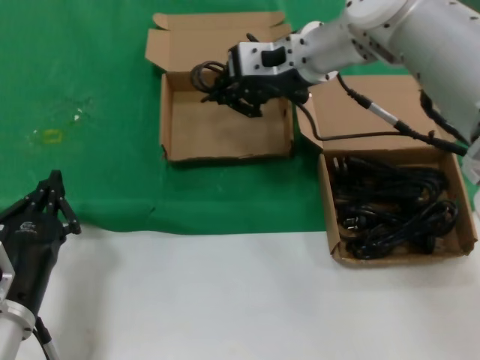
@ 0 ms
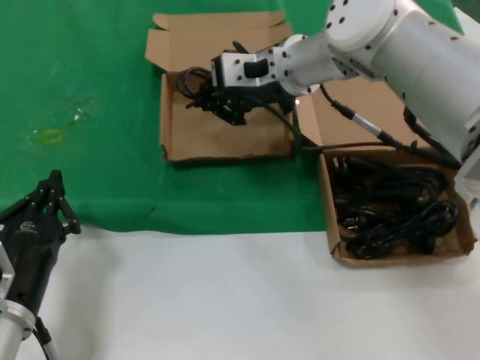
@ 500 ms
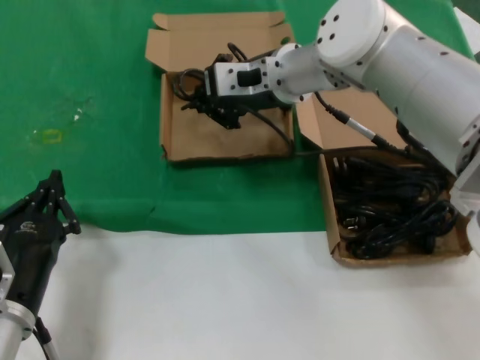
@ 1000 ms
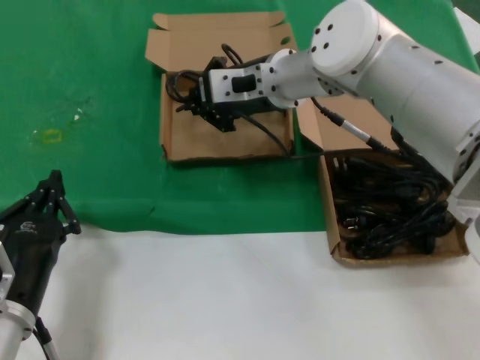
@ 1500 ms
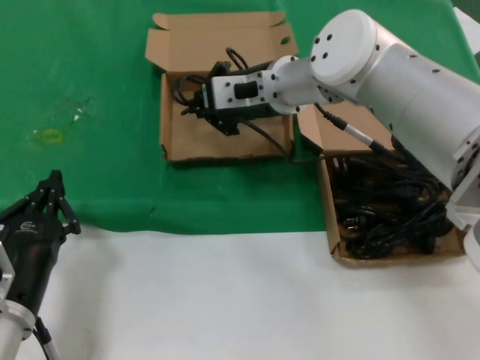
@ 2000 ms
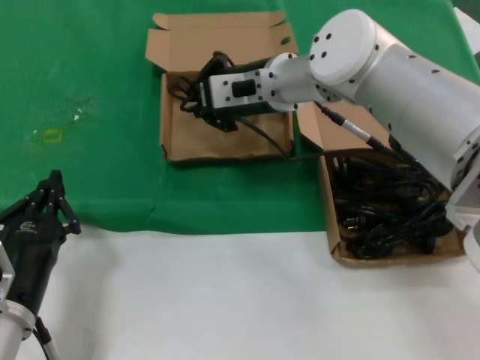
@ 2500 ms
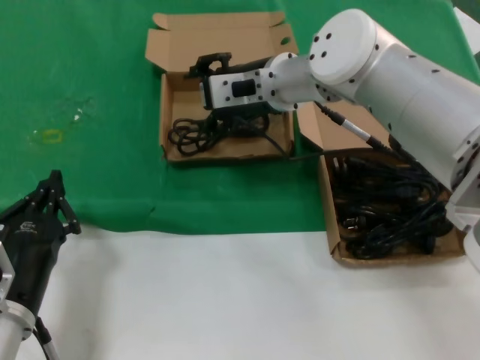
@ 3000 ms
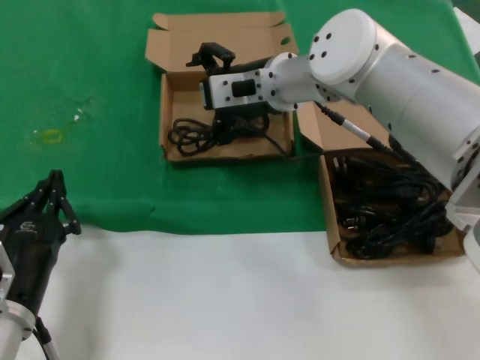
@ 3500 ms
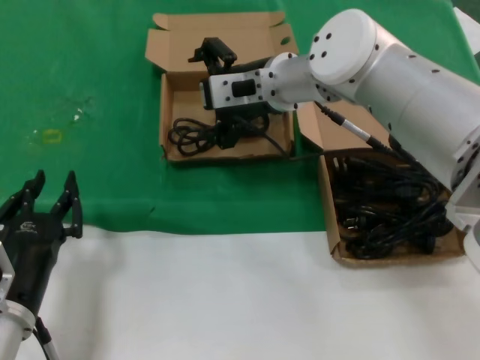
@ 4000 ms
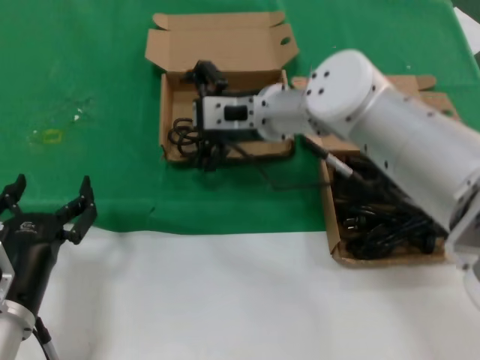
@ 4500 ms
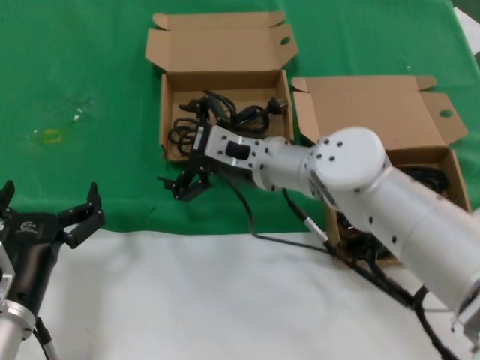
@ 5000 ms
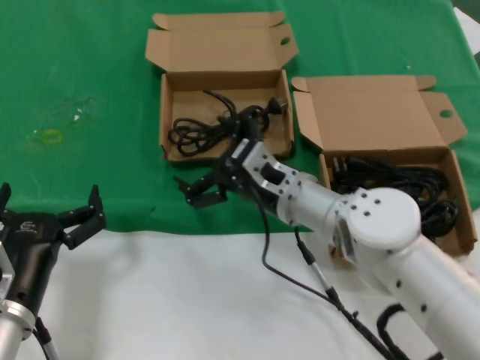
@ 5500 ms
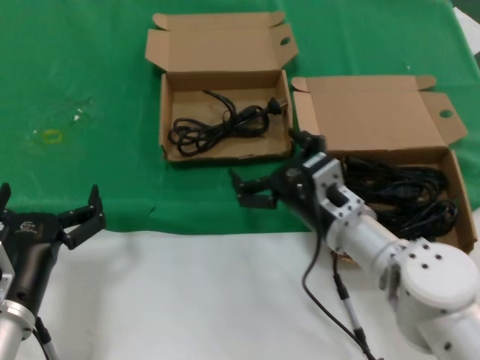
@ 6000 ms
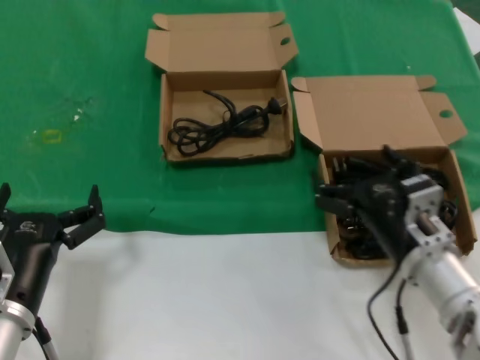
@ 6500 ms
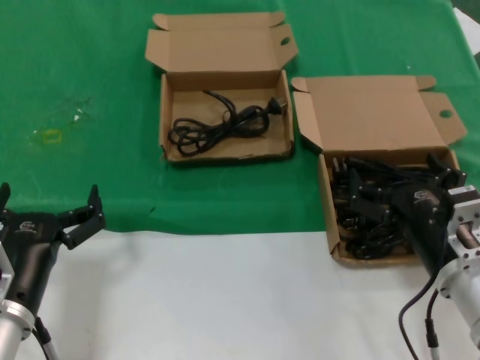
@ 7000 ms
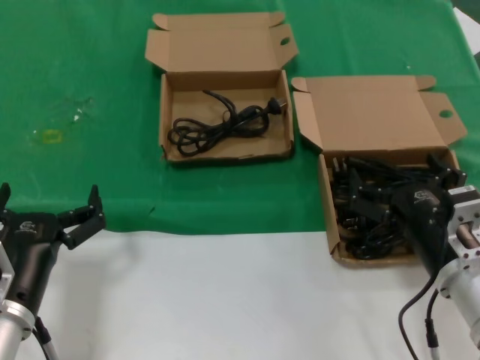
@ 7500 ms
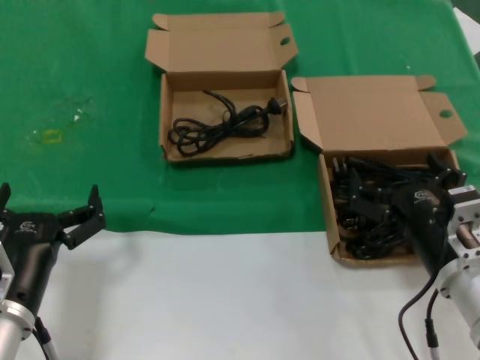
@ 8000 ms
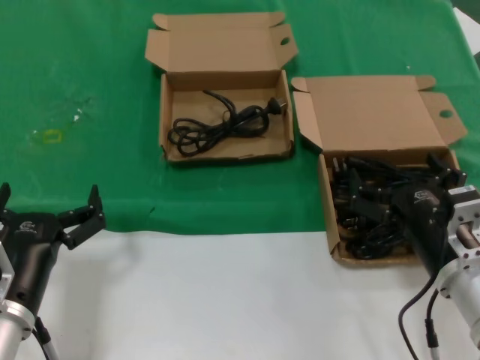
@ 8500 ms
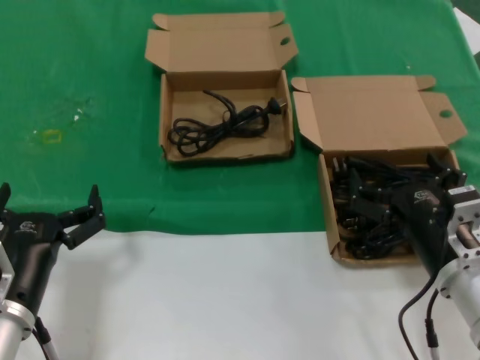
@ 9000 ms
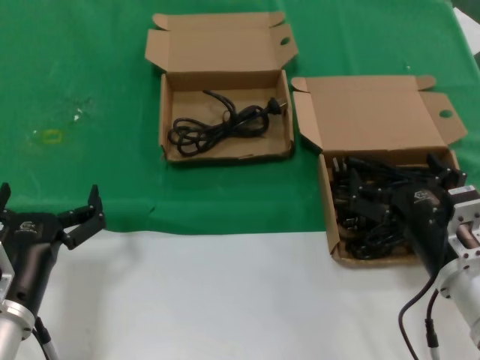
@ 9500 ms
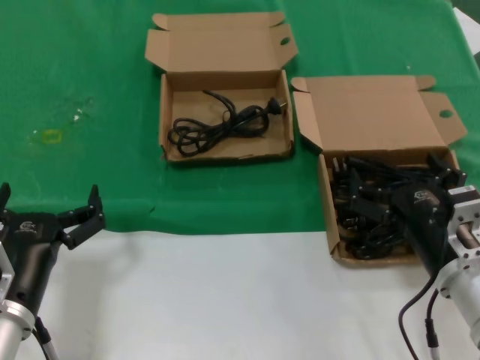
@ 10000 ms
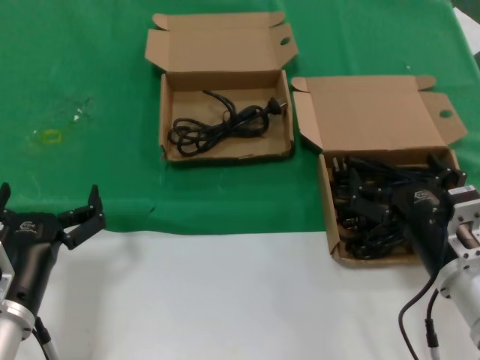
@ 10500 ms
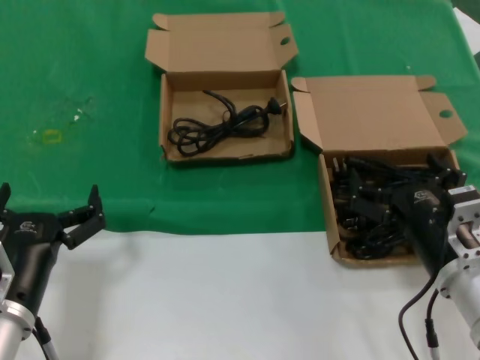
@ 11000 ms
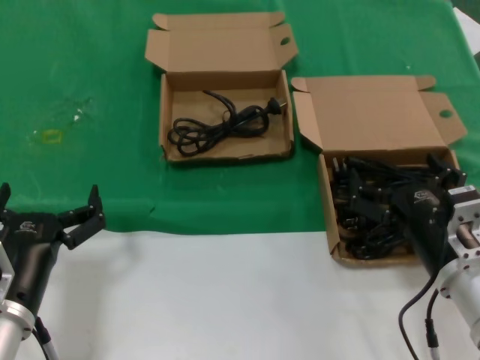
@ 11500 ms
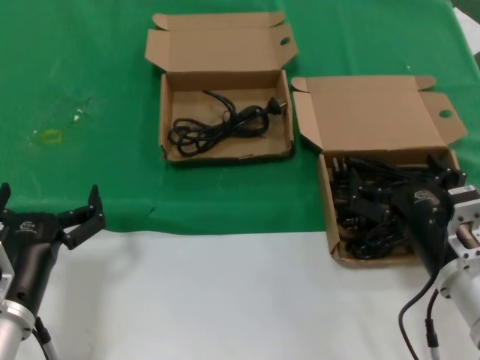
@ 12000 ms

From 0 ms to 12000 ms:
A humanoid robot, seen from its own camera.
Task of the whole recording: take the parts from the box containing them and put them into an empty box.
Step, from 0 ms to 2500 ms: Place the data cable in the another box.
From 0 ms to 2000 ms: The right hand moves about 5 cm.
From 2000 ms to 4000 ms: The two hands keep their place.
From 4000 ms to 6000 ms: The right hand heads downward, backward and to the right, covering some 25 cm.
From 6000 ms to 8000 ms: The right hand goes some 15 cm to the right and backward.
From 8000 ms to 12000 ms: Both hands stay about where they are.

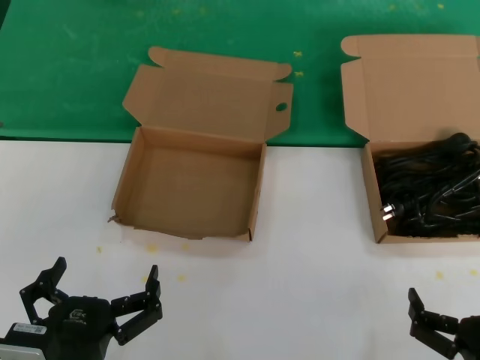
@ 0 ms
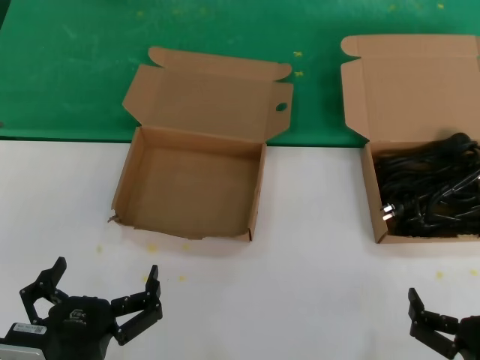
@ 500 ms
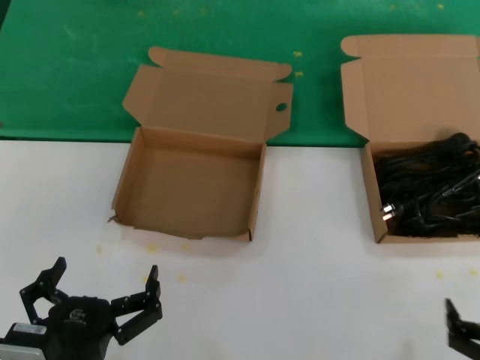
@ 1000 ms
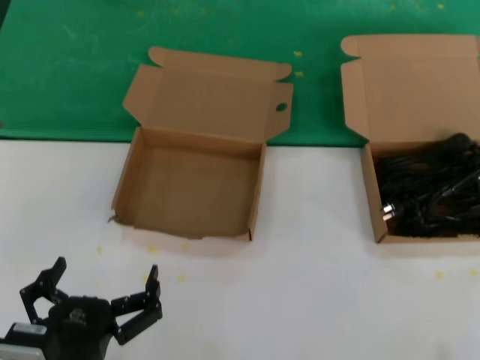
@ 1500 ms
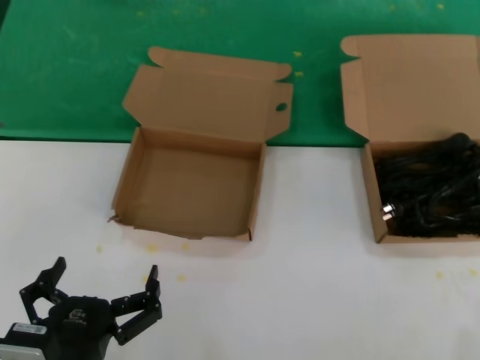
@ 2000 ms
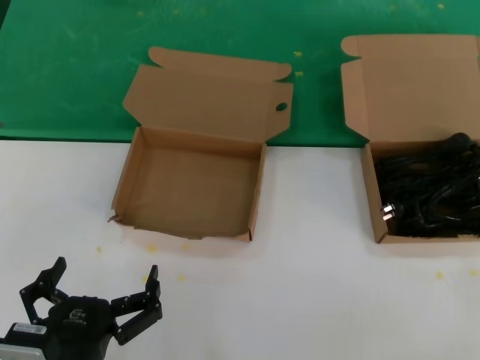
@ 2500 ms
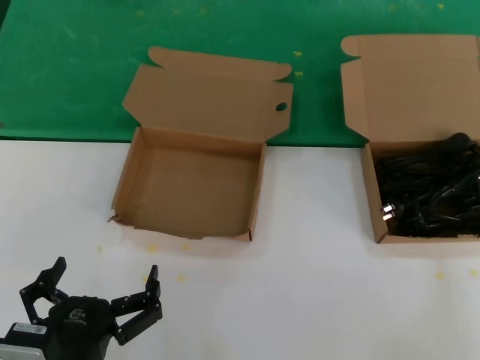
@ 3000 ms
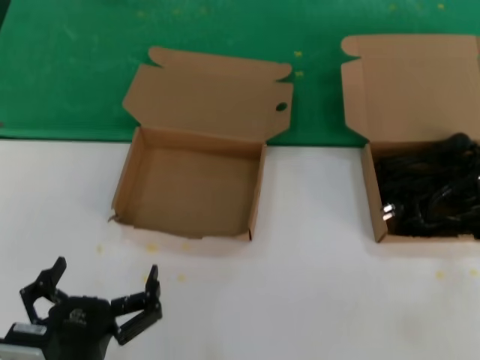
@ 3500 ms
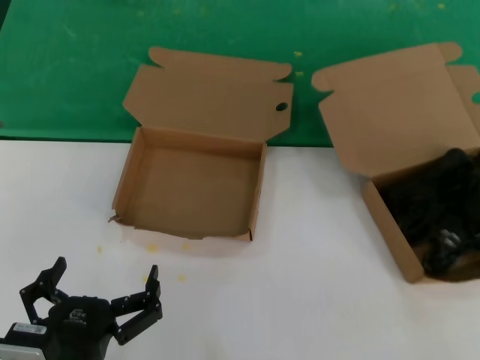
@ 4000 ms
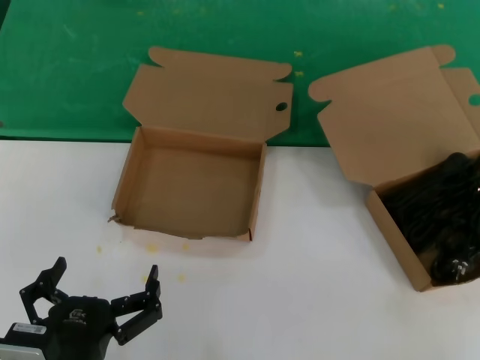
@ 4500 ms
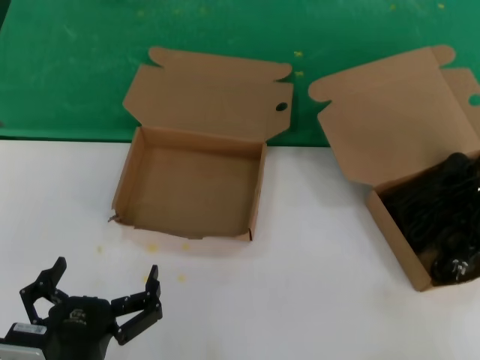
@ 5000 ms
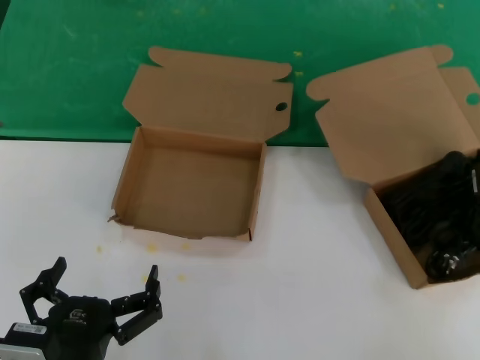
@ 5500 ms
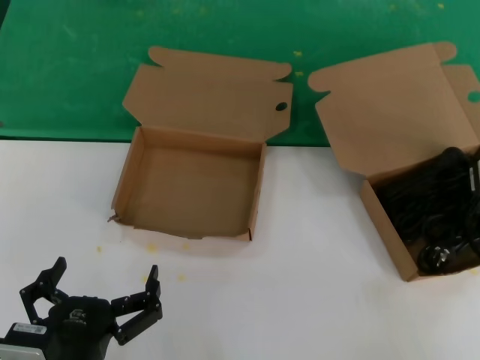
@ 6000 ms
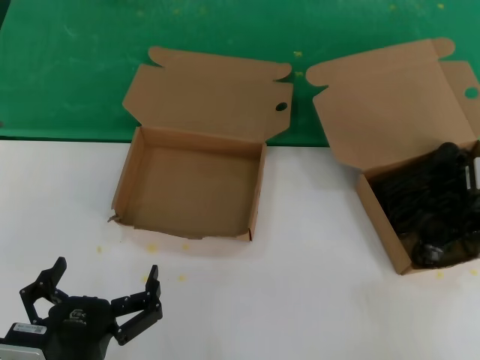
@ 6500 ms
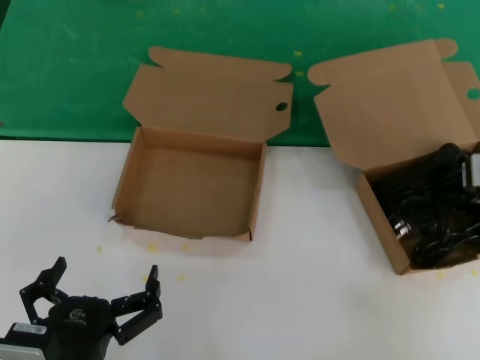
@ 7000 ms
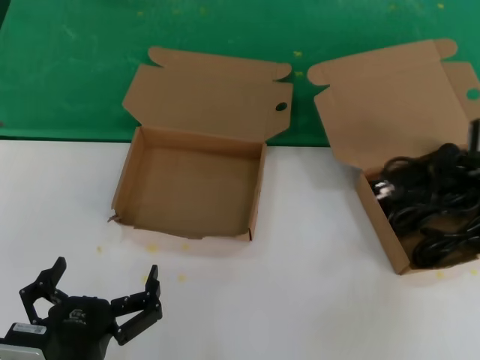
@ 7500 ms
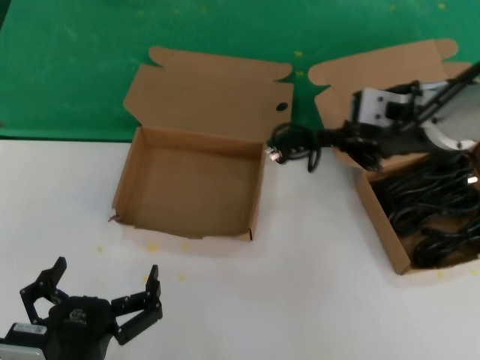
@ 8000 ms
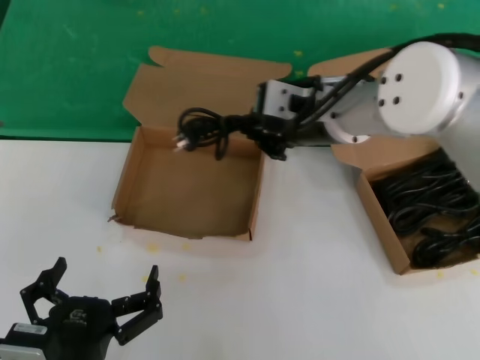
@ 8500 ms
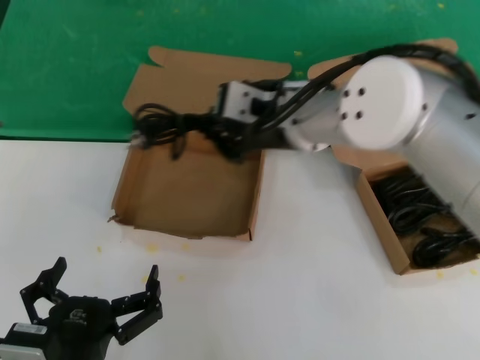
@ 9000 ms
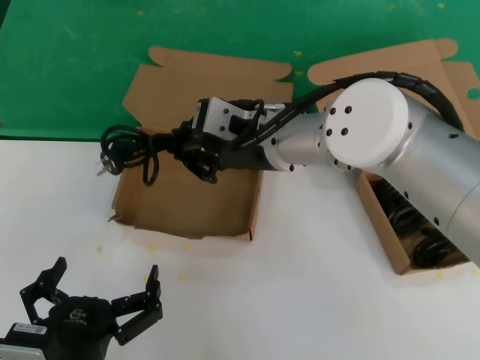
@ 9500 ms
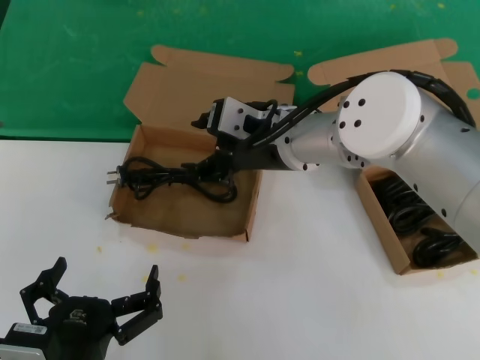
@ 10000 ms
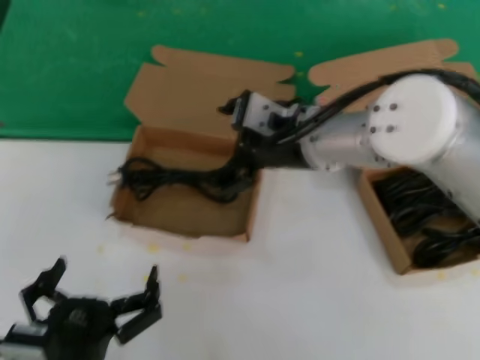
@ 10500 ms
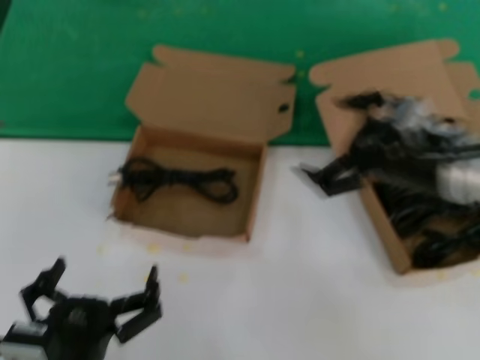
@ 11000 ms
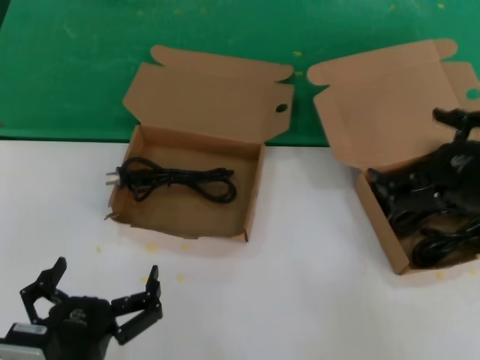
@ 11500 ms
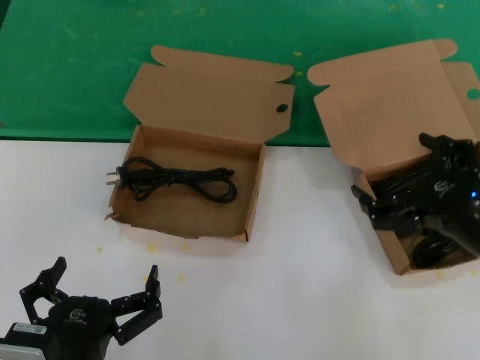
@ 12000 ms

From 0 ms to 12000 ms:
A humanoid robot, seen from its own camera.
Task of the whole recording: take the parts from the box containing them and put them into an empty box.
Step, from 0 ms to 6500 ms: Grasp the data cable.
Step, from 7000 ms to 10500 ms: Place the data cable in the another box.
From 0 ms to 2000 ms: The right hand heads upward and to the right, covering about 15 cm.
From 2000 ms to 4000 ms: The right hand shifts approximately 20 cm forward and upward.
From 4000 ms to 6000 ms: The right hand goes approximately 5 cm to the left.
From 6000 ms to 8000 ms: The right hand is displaced to the left and upward by roughly 15 cm.
From 8000 ms to 10000 ms: The right hand heads to the left, covering some 15 cm.
From 10000 ms to 12000 ms: The right hand moves to the right, downward and backward, approximately 30 cm.

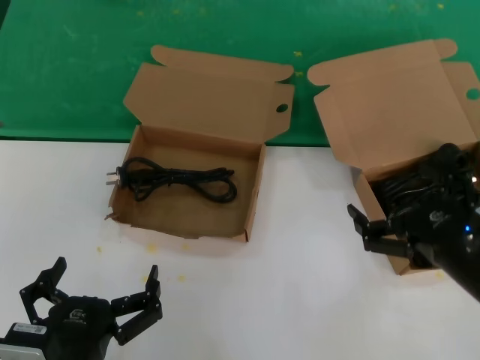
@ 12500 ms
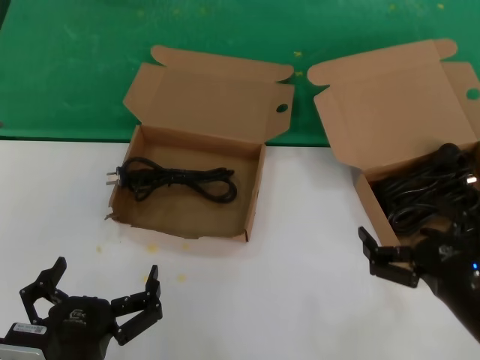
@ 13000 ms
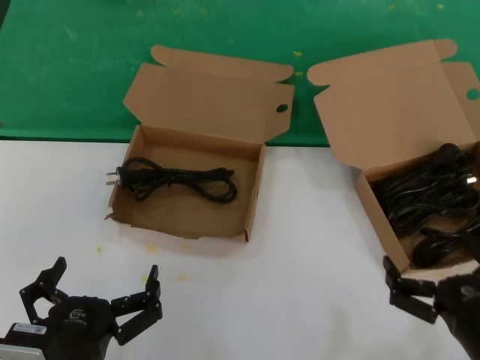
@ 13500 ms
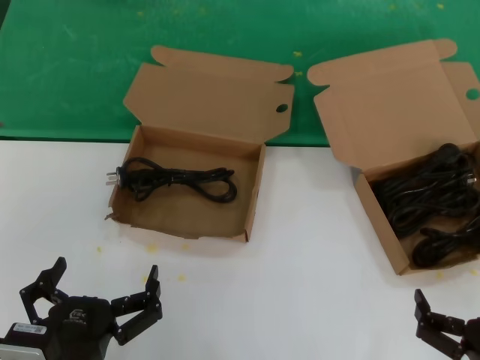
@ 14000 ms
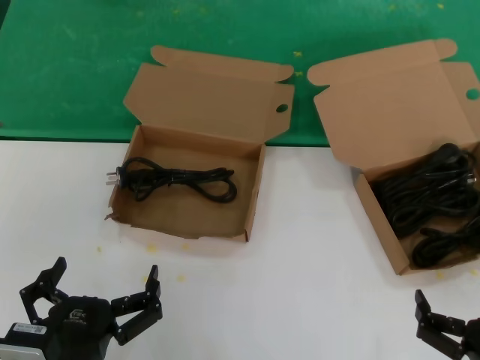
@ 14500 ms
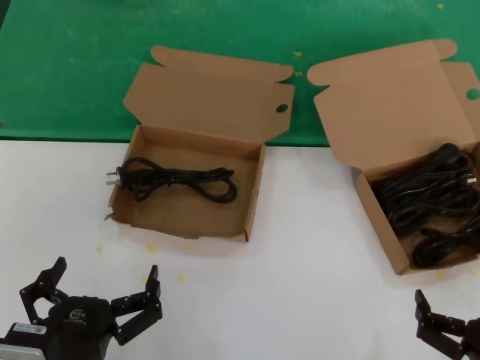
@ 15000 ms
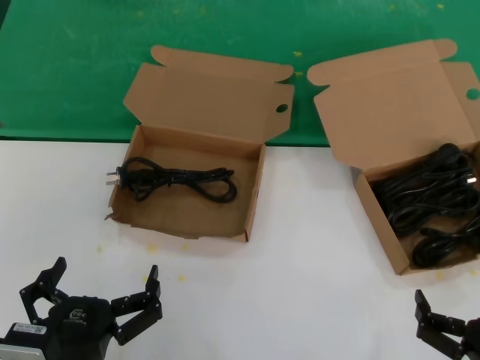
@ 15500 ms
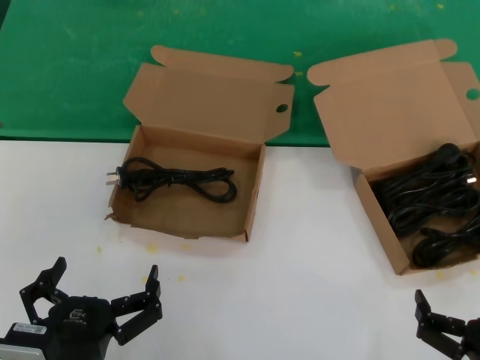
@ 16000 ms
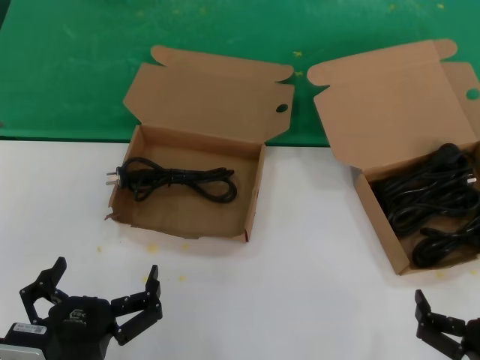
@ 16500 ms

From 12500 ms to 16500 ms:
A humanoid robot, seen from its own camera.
Task of the whole recording: take the parts from the box containing them and put them into an empty box.
From 12500 ms to 14500 ms: The right hand goes approximately 15 cm downward and backward.
From 14500 ms to 16500 ms: The two hands keep their place.
